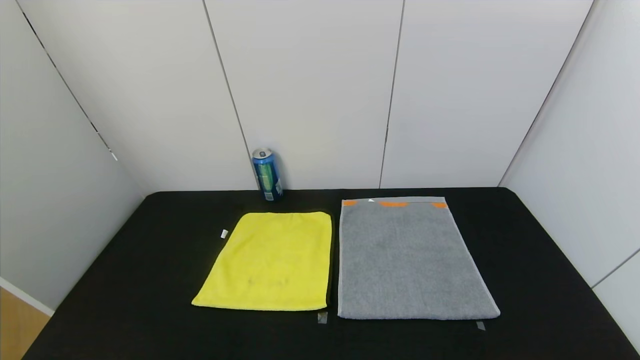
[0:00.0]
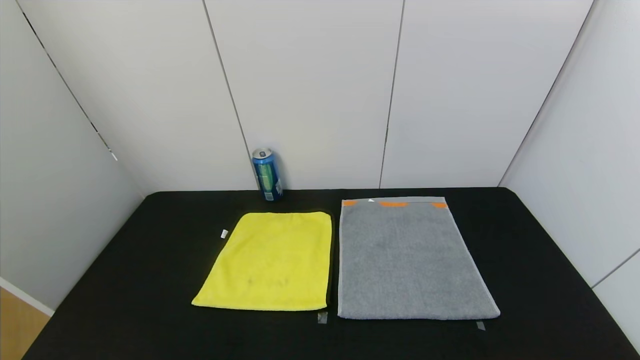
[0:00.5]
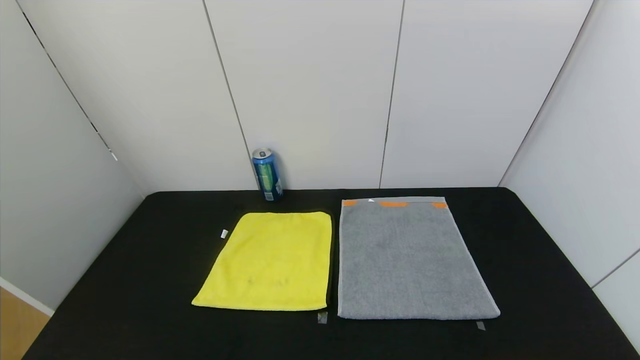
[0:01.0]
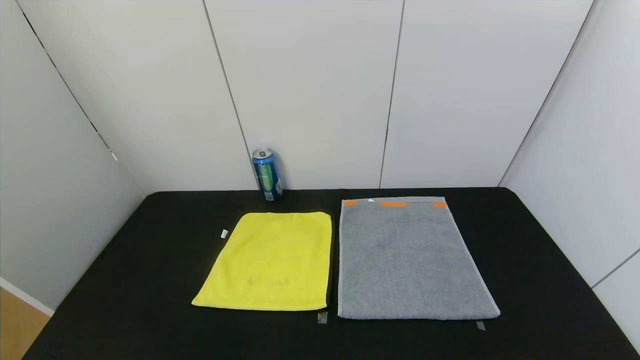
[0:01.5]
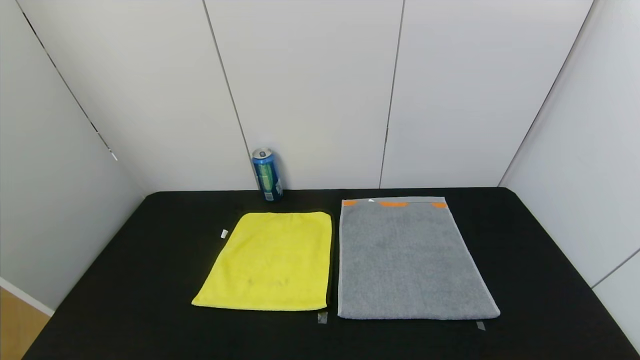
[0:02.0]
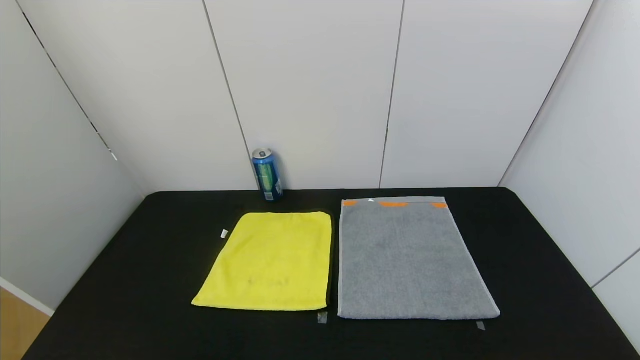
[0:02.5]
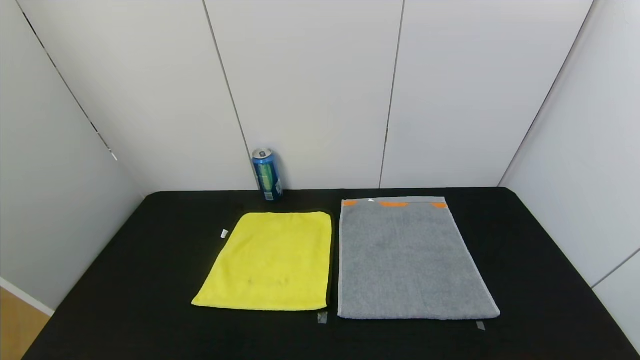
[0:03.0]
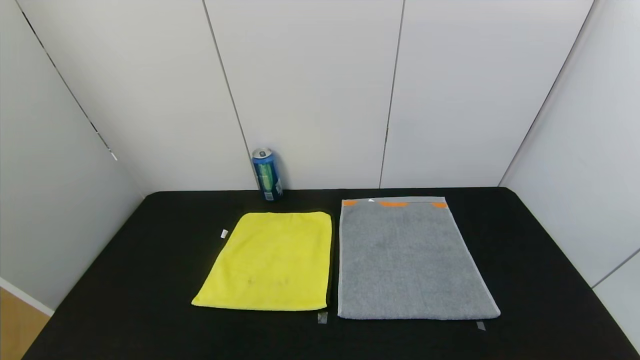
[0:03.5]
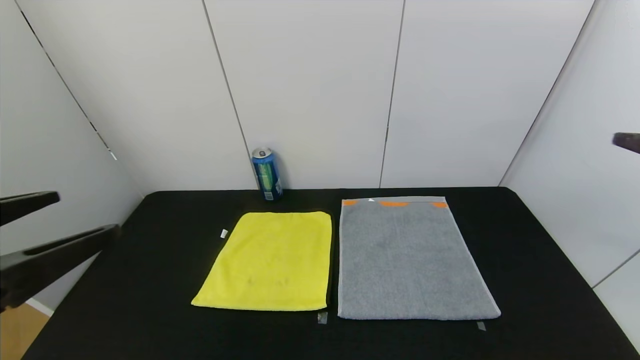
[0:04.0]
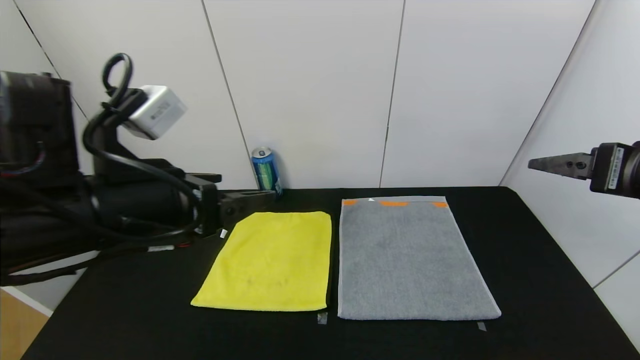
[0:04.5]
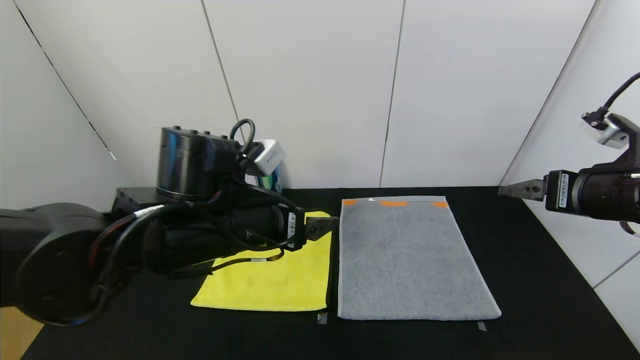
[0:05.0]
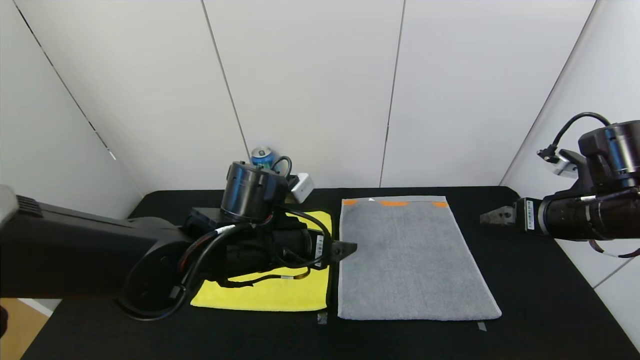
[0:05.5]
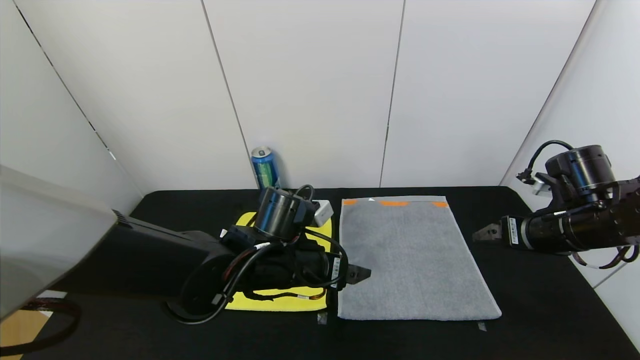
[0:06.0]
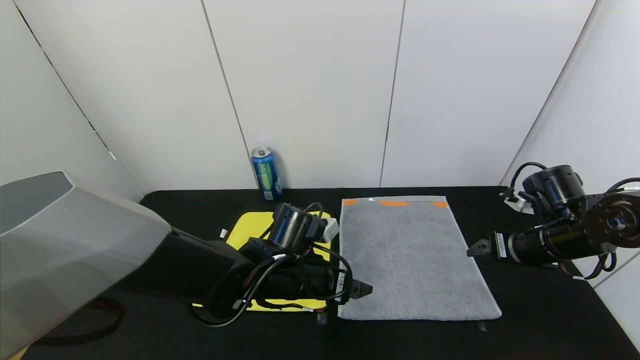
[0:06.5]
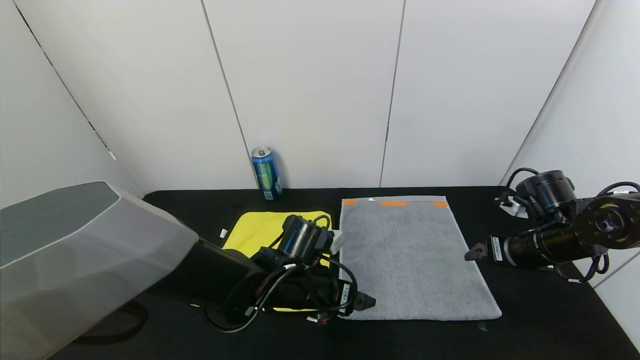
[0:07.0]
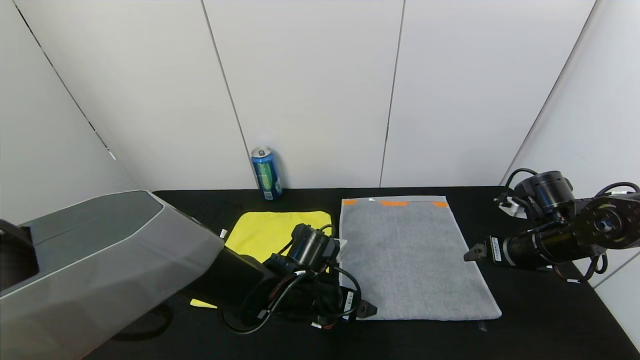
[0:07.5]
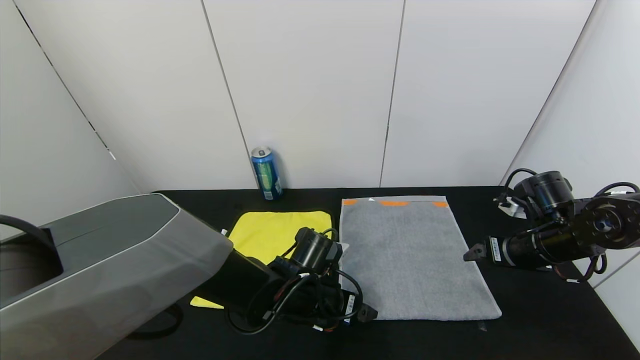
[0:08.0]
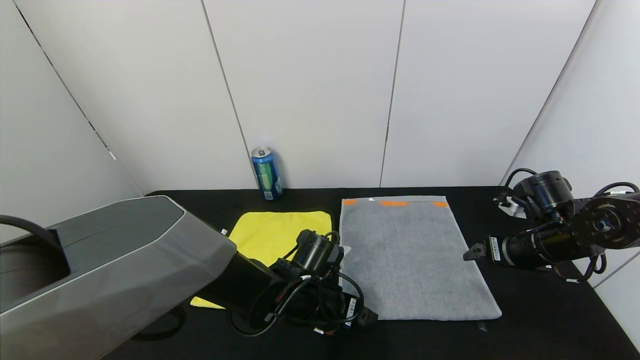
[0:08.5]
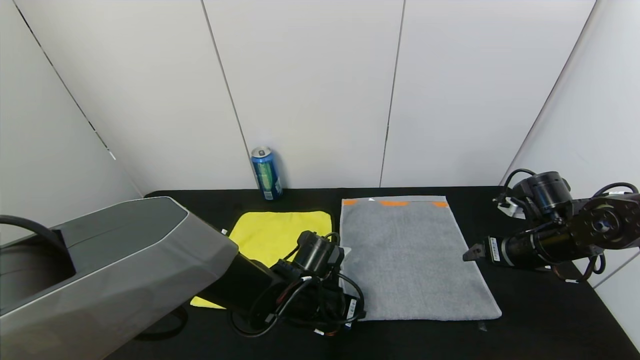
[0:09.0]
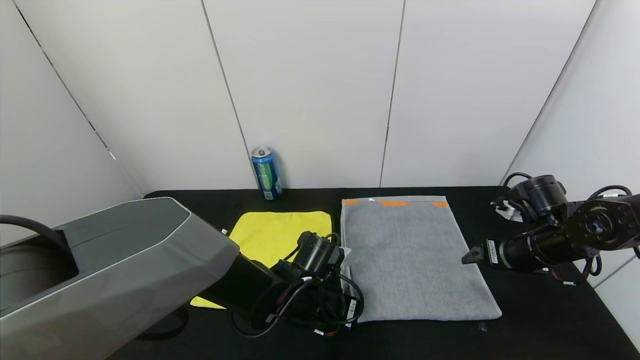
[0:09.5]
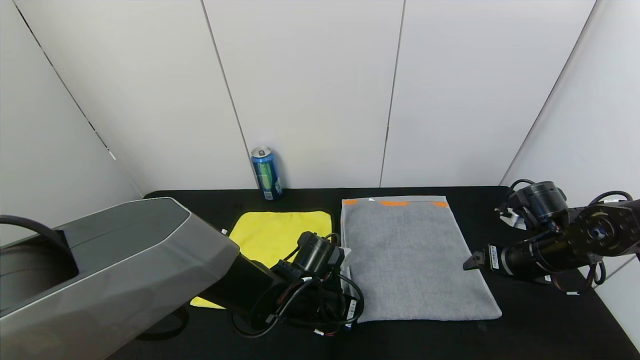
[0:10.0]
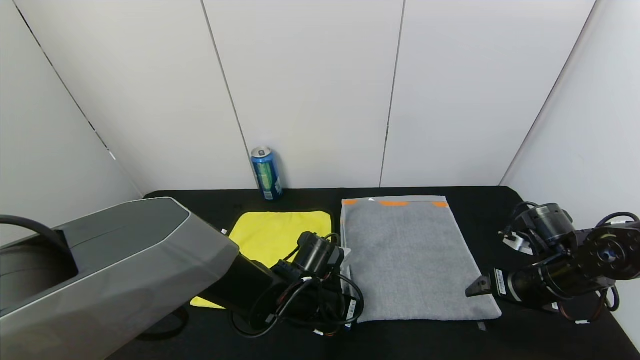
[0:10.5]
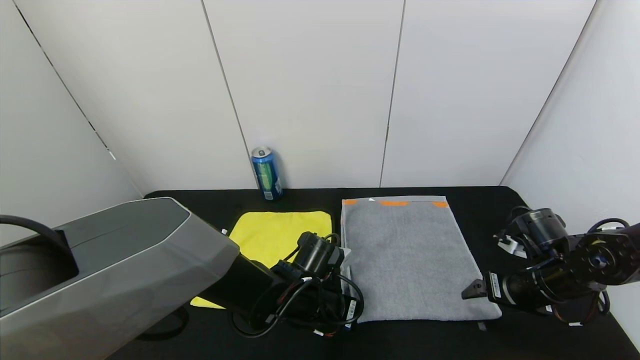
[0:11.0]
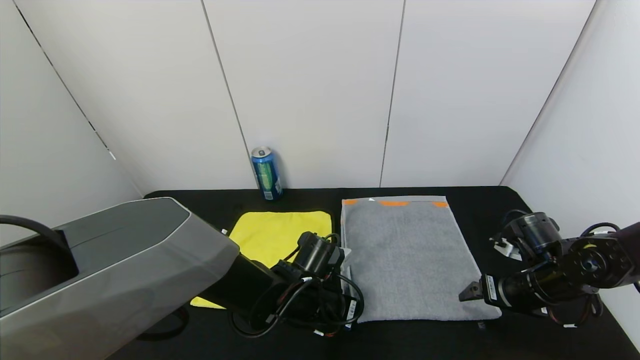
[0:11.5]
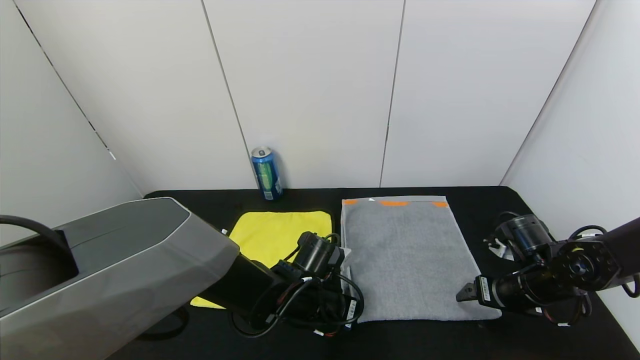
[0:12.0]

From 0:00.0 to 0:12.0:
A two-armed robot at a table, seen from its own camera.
Task of the whole recording: Use the gripper to fold the yellow towel and grey towel in half twice,then put the yellow towel on the grey towel.
From 0:00.0 to 0:02.0: Neither gripper changes place.
From 0:02.0 to 0:04.0: The left gripper is displaced upward and forward by about 25 cm.
From 0:04.0 to 0:06.0: The right gripper shifts some 25 cm forward and downward. Meanwhile the left gripper heads to the right, forward and downward, covering some 30 cm.
From 0:06.0 to 0:08.0: The left gripper heads downward, covering approximately 10 cm. The right gripper ends up approximately 5 cm from where it was.
From 0:08.0 to 0:10.0: The left gripper closes.
From 0:10.0 to 0:12.0: The right gripper moves some 5 cm.

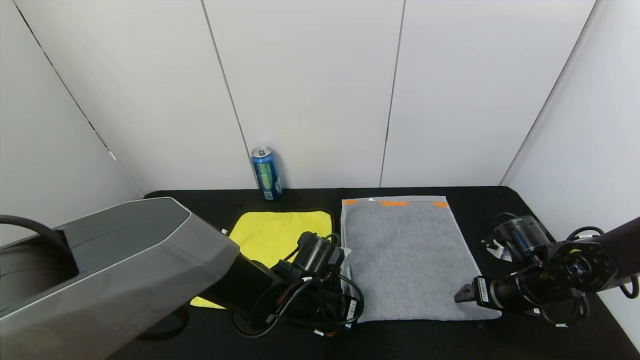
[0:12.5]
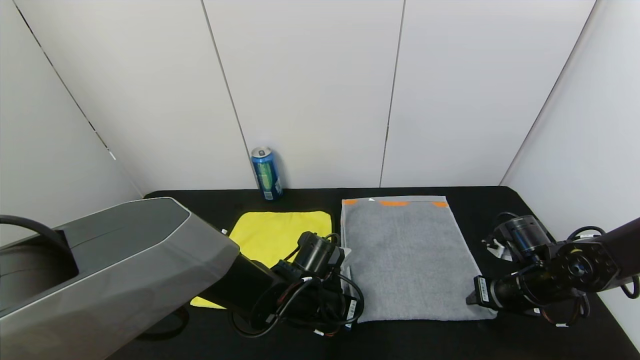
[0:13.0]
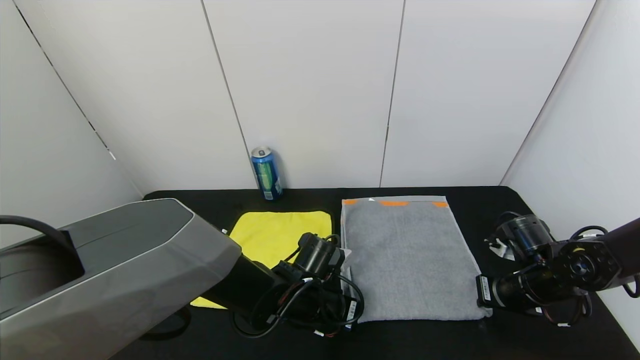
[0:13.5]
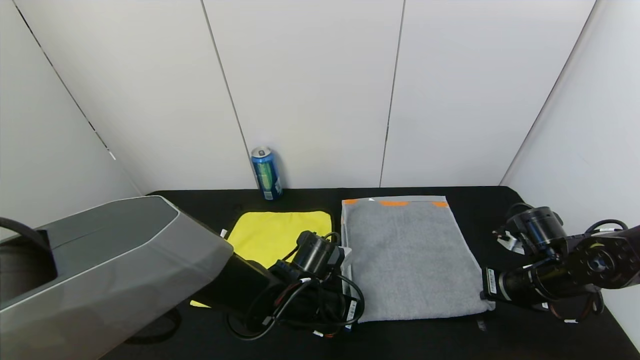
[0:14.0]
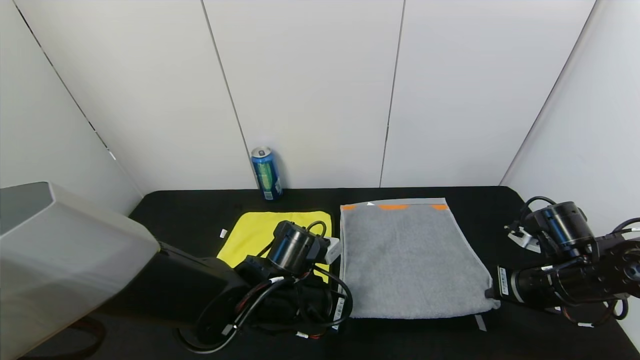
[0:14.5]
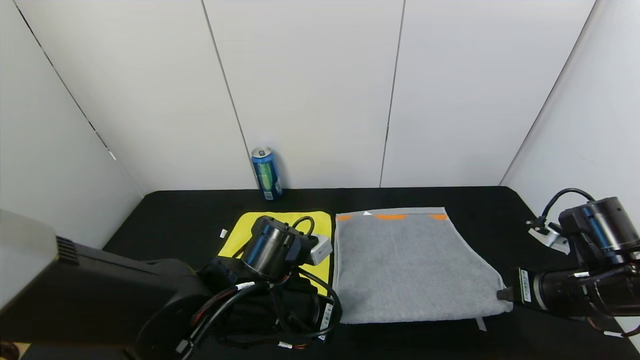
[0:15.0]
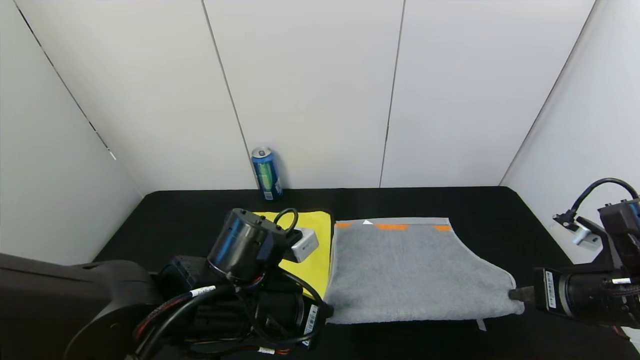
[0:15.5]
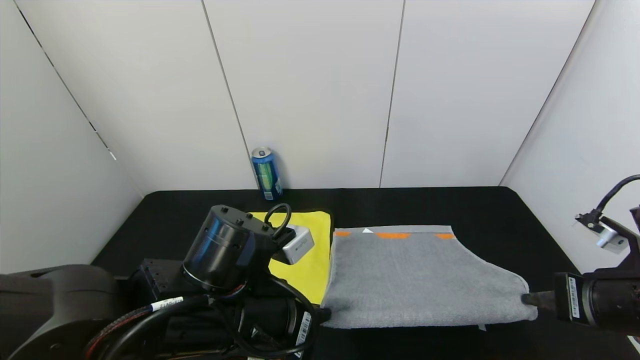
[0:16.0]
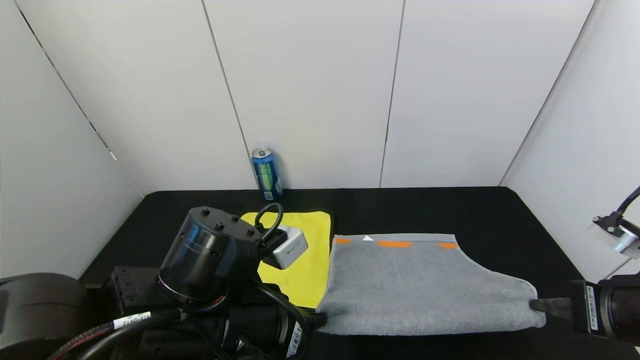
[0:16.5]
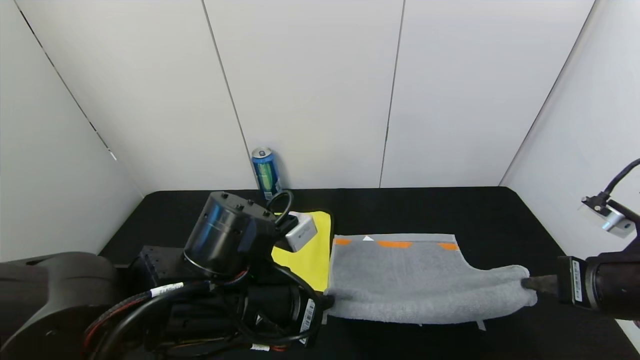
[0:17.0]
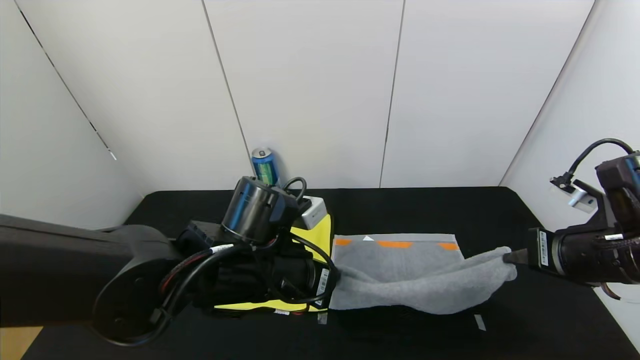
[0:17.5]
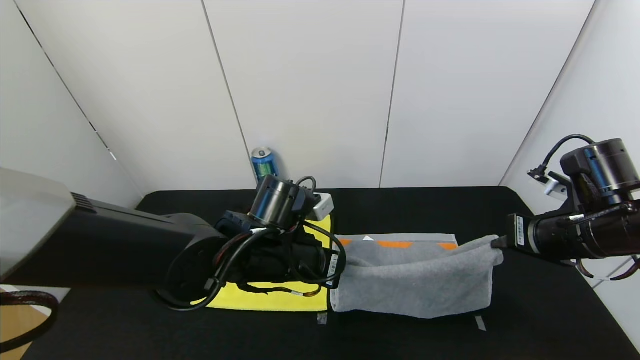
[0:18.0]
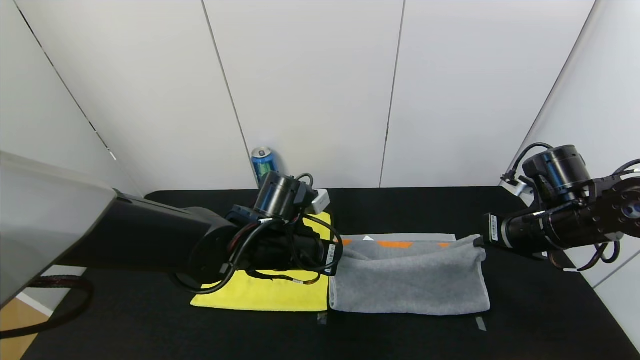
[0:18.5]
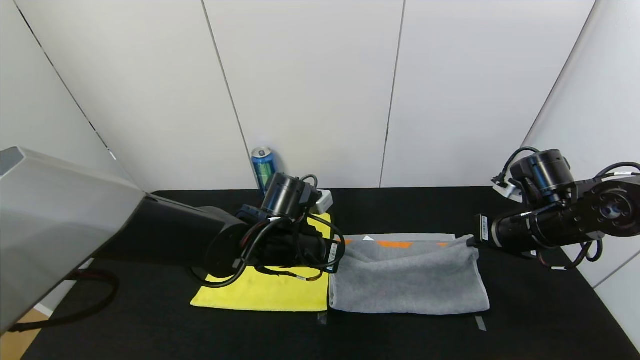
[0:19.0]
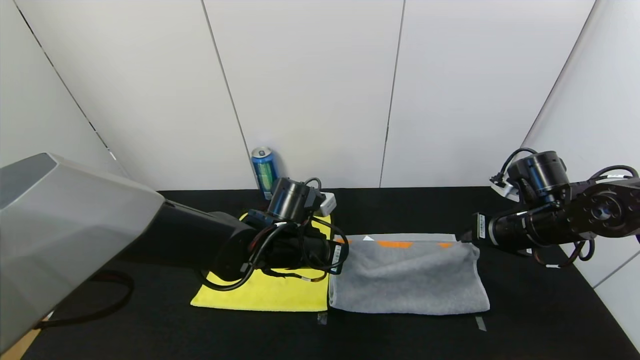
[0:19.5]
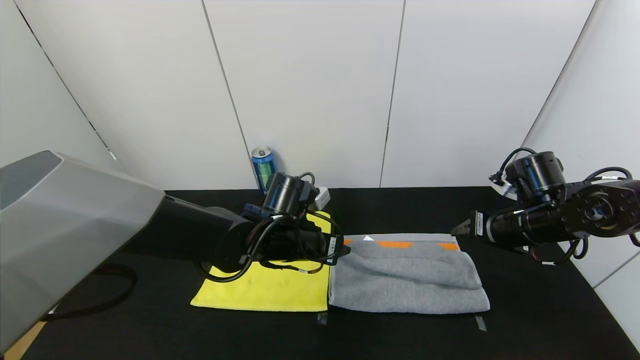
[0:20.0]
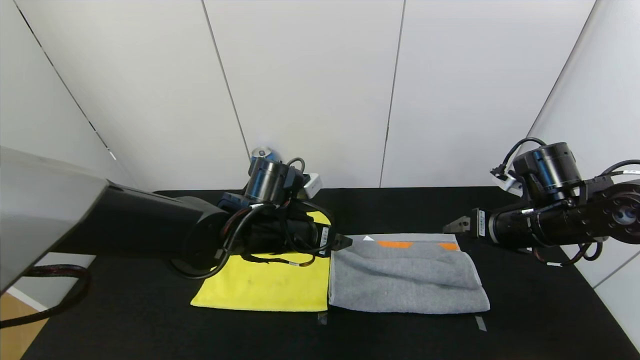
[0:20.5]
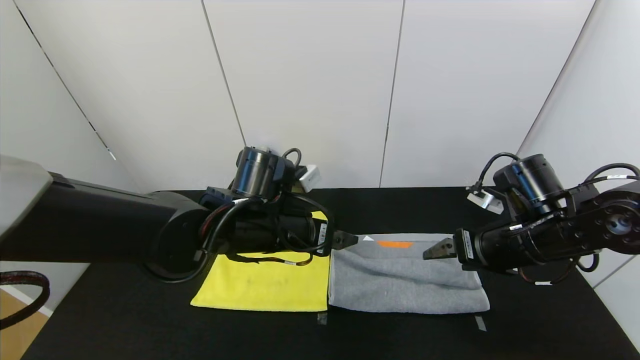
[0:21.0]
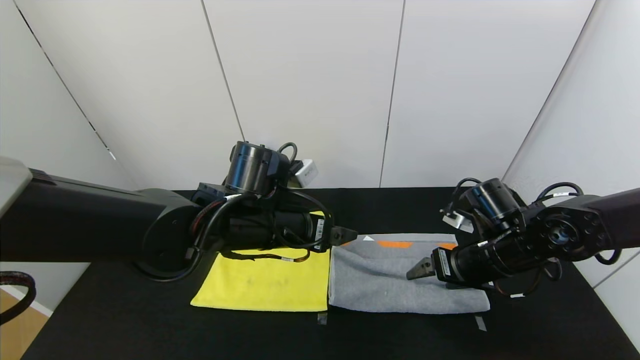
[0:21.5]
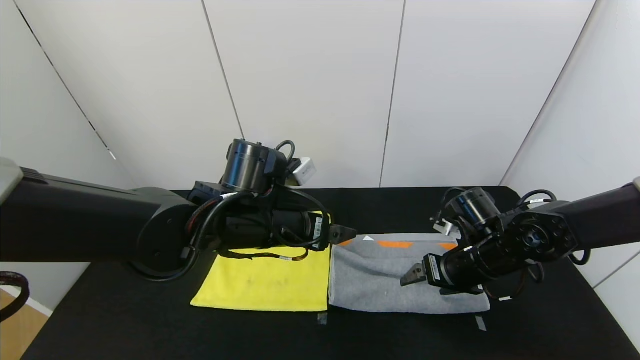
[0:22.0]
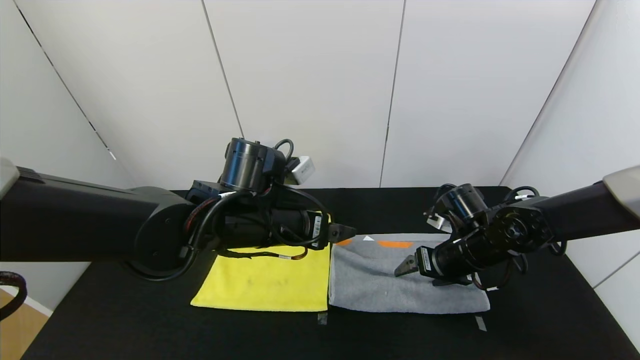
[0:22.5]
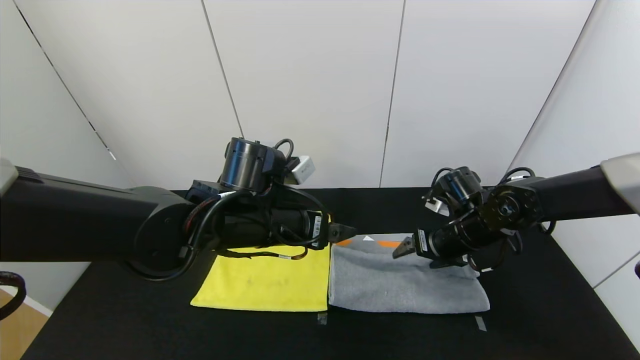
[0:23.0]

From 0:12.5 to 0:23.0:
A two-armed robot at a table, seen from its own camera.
Task of the whole recording: Use the gripper to fold the yellow towel and grey towel in half twice,then put the yellow towel on the grey towel.
Step, from 0:12.5 to 0:20.0: Fold the gray towel upwards with the left gripper.
Step, from 0:12.5 to 0:20.0: Fold the gray towel upwards with the right gripper.
From 0:12.5 to 0:14.5: The left gripper moves roughly 5 cm. Meanwhile the right gripper ends up approximately 5 cm from where it was, and closes up.
From 0:14.5 to 0:16.5: Both grippers travel together backward and upward, about 15 cm.
From 0:16.5 to 0:19.0: The grippers both shift forward by approximately 15 cm.
From 0:19.0 to 0:21.0: The right gripper ends up some 5 cm from where it was, and opens. The left gripper opens up.
From 0:21.0 to 0:23.0: The right gripper travels forward by approximately 10 cm.
